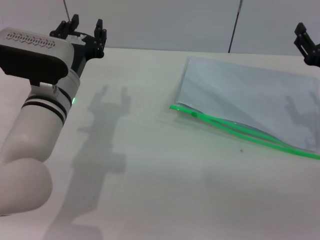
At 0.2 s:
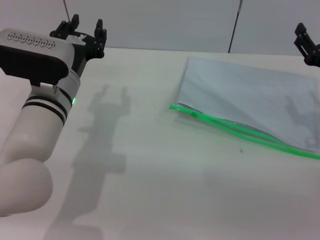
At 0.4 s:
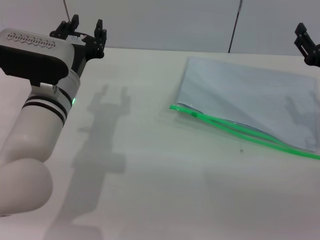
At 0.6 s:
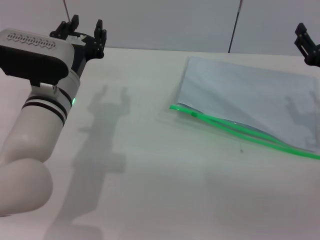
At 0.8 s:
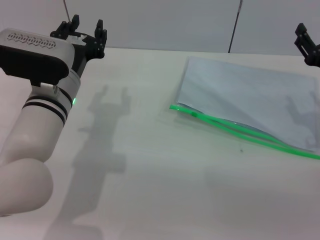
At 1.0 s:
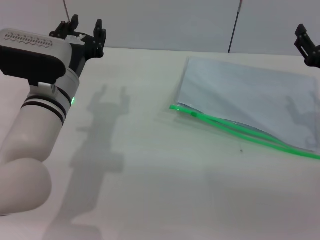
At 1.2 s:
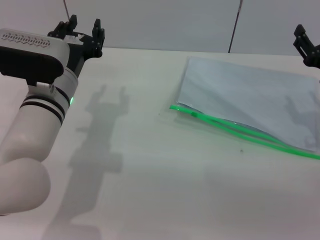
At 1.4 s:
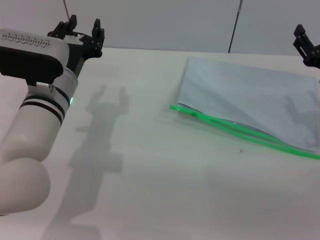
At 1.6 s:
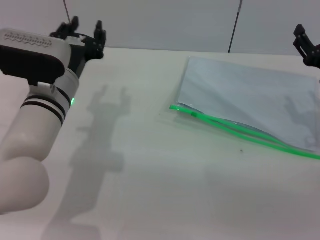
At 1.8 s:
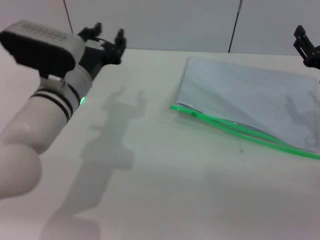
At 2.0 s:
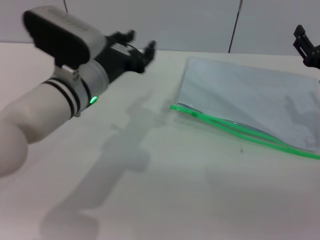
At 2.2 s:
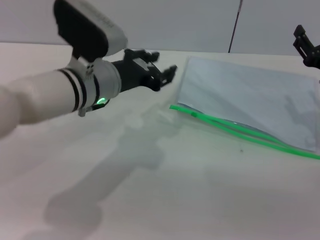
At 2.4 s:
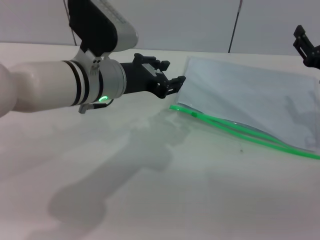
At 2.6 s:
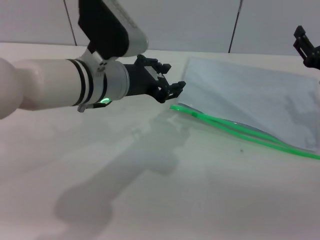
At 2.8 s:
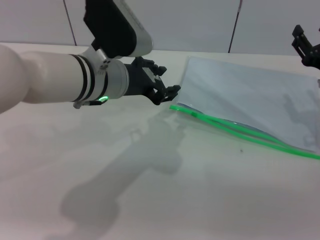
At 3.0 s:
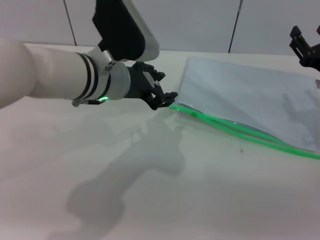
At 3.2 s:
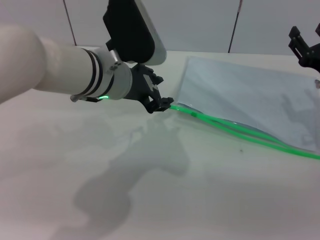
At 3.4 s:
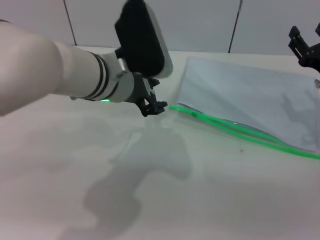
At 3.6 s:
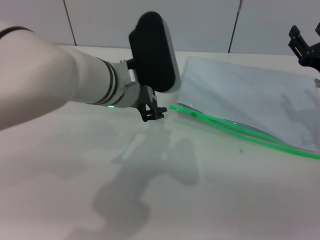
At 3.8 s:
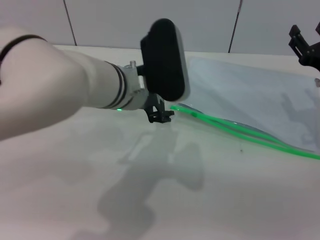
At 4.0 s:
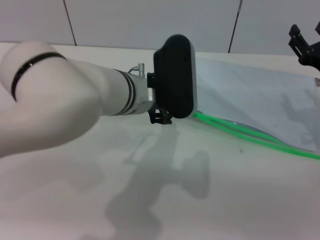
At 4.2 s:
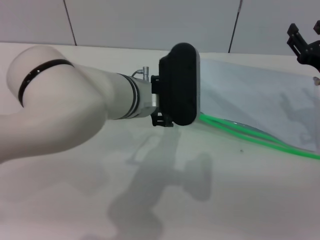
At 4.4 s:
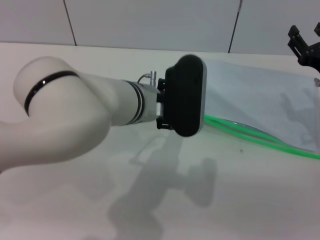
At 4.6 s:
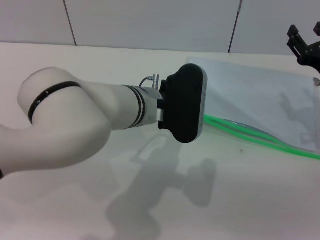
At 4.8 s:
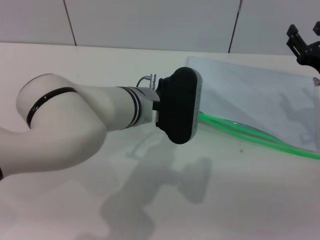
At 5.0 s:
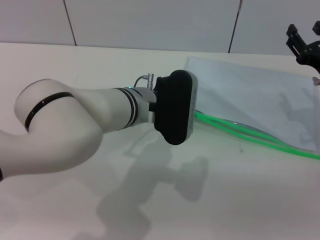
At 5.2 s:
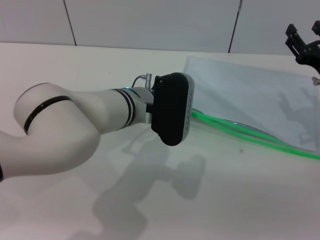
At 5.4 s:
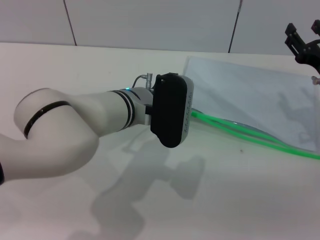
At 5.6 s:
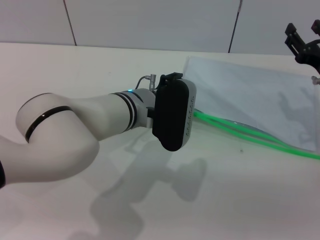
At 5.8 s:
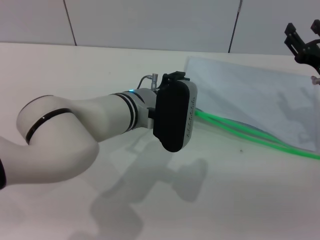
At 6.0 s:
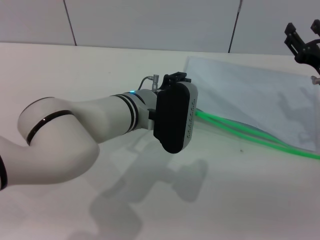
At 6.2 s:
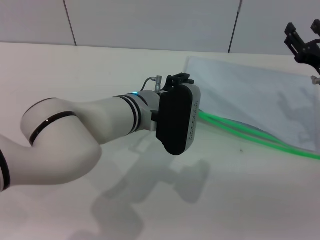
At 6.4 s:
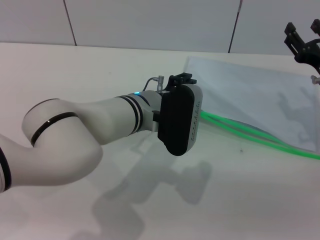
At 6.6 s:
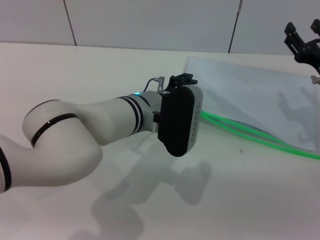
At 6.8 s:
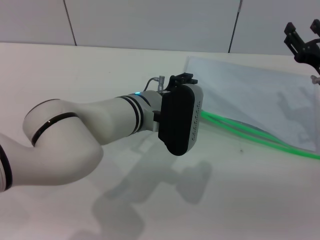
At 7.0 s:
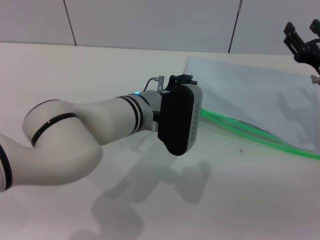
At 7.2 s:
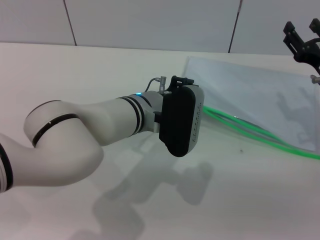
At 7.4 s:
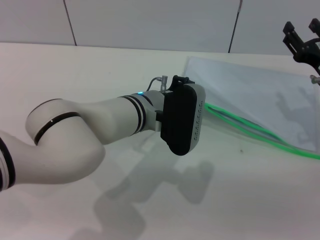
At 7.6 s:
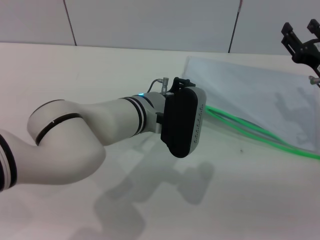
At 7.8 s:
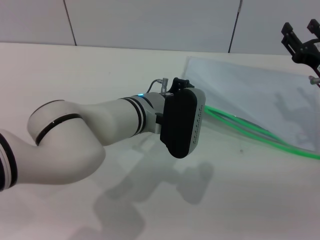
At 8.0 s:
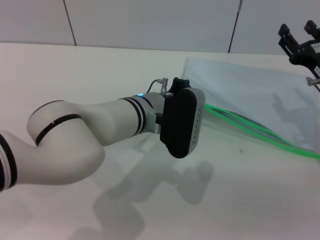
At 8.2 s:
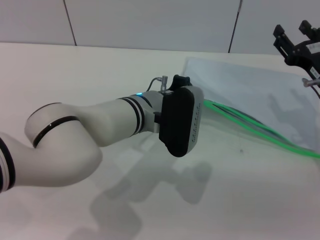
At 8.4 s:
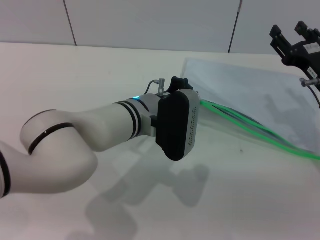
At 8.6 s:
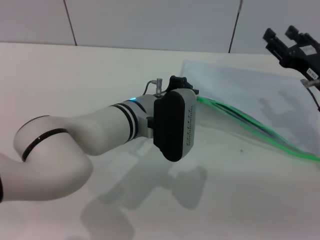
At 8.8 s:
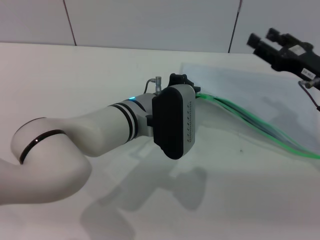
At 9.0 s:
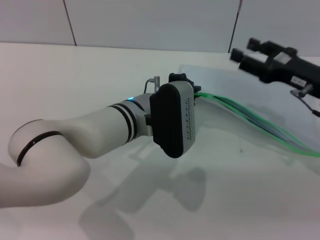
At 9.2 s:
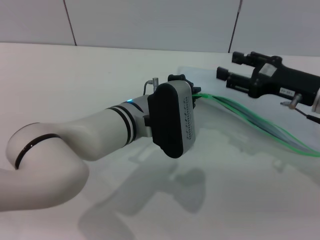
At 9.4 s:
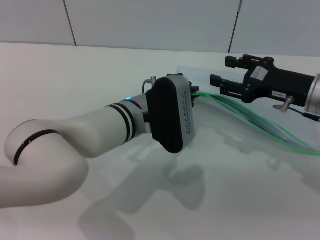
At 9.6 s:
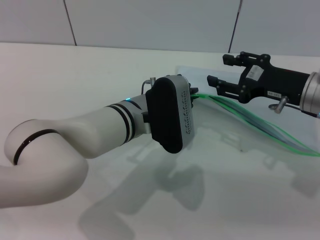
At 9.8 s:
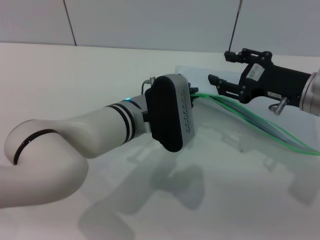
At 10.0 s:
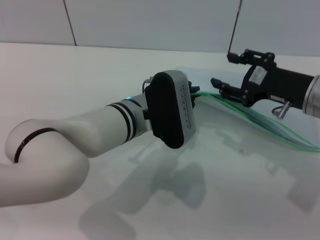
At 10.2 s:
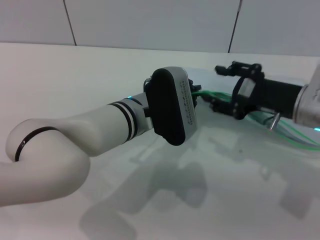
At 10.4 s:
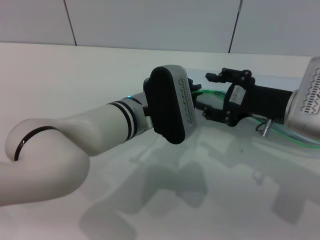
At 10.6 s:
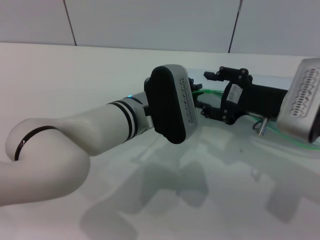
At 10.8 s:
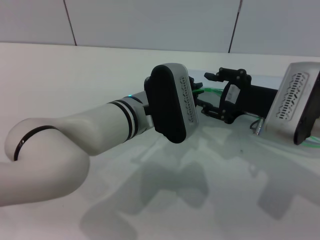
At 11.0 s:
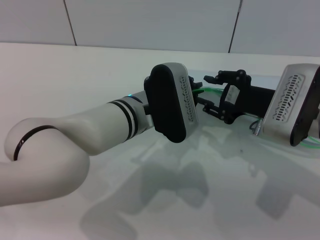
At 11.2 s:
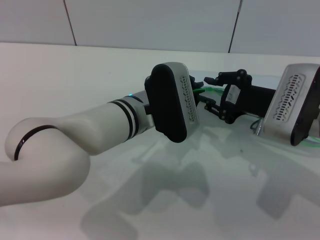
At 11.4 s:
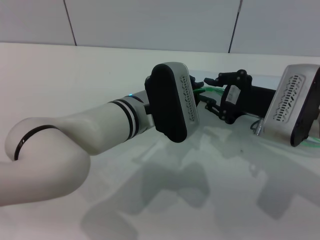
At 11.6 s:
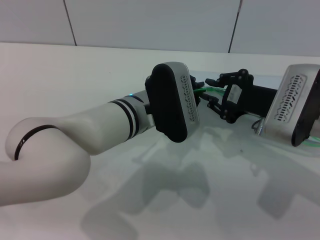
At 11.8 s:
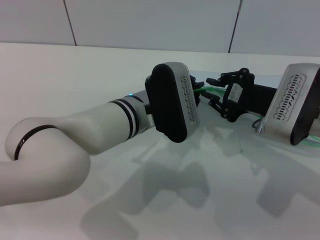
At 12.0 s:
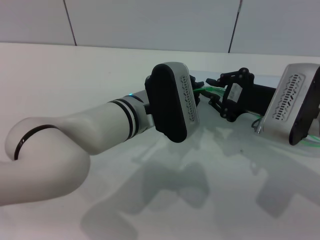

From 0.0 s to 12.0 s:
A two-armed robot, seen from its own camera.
Step, from 0.0 s to 9.6 s: Pick up the transparent plastic bag with the left gripper.
From 0.0 s to 1.6 s: Neither gripper changes place.
From 1.6 s to 3.0 s: The left gripper goes approximately 10 cm upward and to the right.
From 3.0 s to 4.4 s: The left gripper travels to the right by some 5 cm.
From 4.4 s to 6.0 s: There are only small adjustments of the grippers.
From 6.0 s to 7.6 s: The left gripper closes.
From 9.0 s to 10.4 s: The right gripper shifts roughly 5 cm to the left.
From 10.4 s to 12.0 s: The right gripper closes.

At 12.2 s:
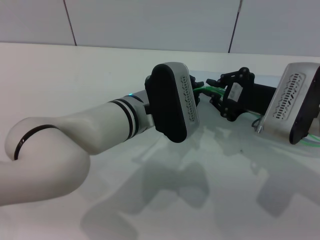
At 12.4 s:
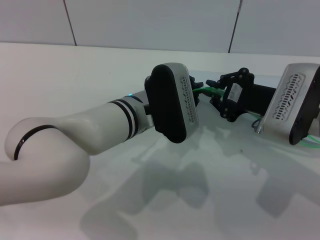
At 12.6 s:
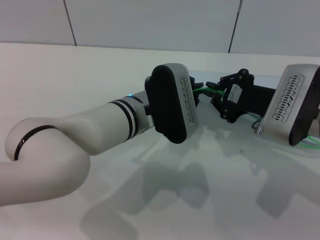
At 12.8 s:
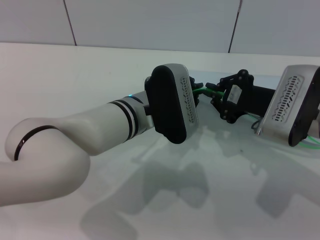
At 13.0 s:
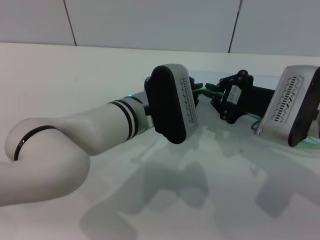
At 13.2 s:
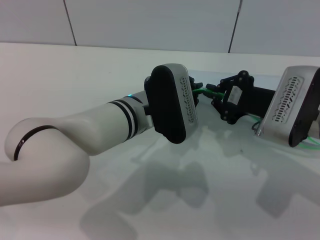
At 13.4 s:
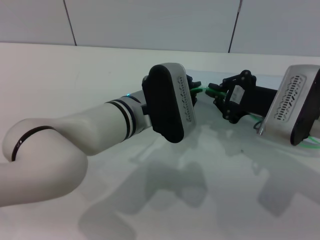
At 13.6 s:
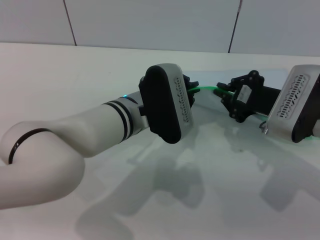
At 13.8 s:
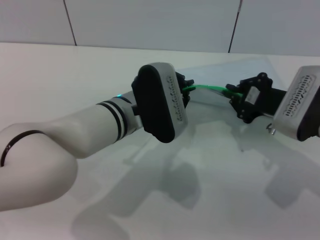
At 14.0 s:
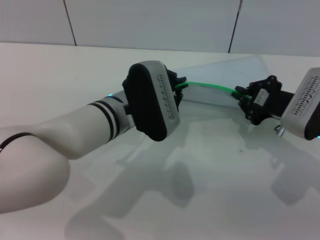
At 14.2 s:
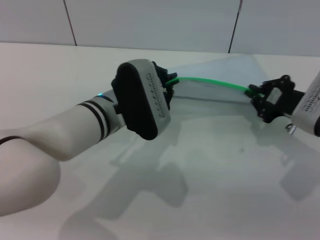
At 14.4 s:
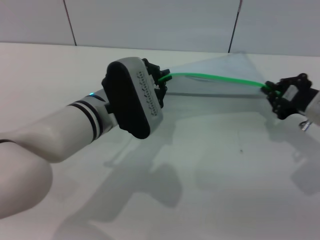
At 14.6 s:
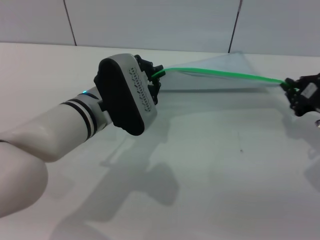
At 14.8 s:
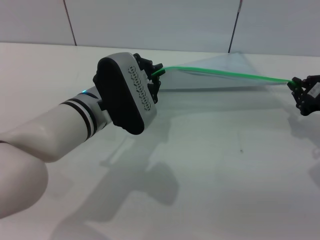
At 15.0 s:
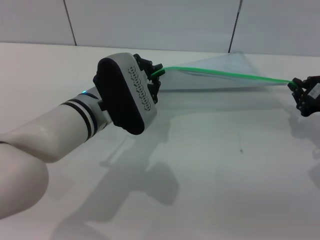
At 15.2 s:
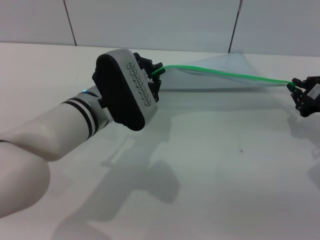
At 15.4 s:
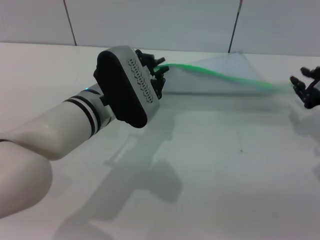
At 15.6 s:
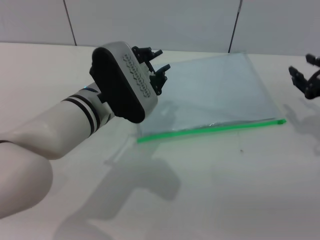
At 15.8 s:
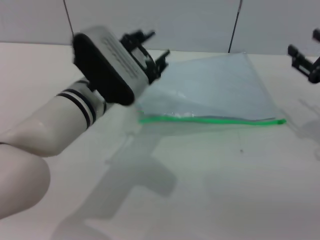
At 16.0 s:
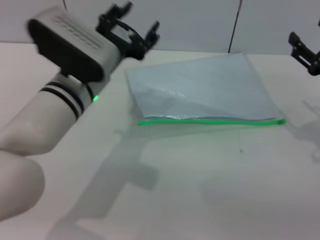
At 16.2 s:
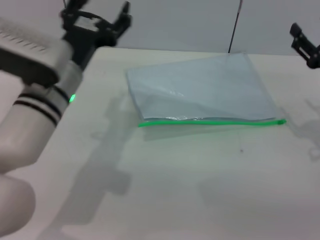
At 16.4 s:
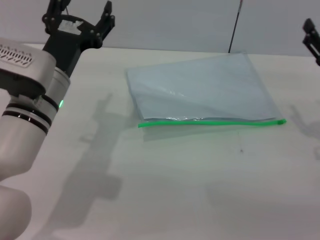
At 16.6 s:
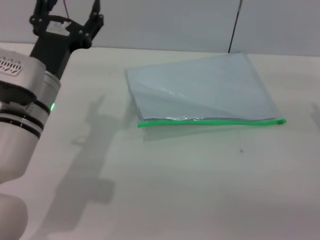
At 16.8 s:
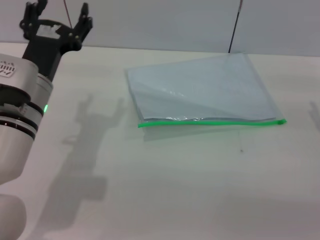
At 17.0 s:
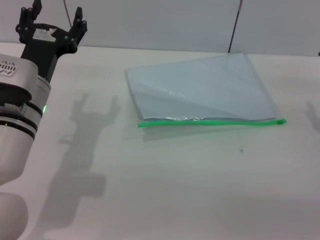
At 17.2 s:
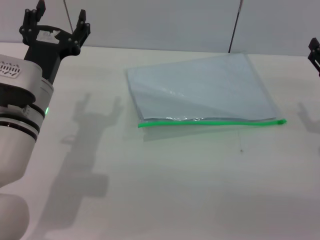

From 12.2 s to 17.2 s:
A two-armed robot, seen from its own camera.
Step, from 12.2 s to 15.2 s: Pulling up the zipper on the transparent plastic bag with the right gripper to close it.
Step, from 15.4 s to 15.8 s: Place the transparent plastic bag.
From 12.2 s to 13.8 s: There are only small adjustments of the grippers.
From 13.8 s to 15.6 s: The right gripper travels to the right by approximately 10 cm.
From 15.6 s to 17.2 s: The right gripper opens. Meanwhile the left gripper heads to the left, covering roughly 10 cm, and opens up.
